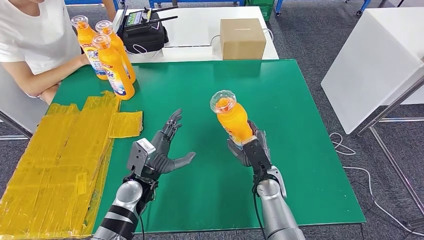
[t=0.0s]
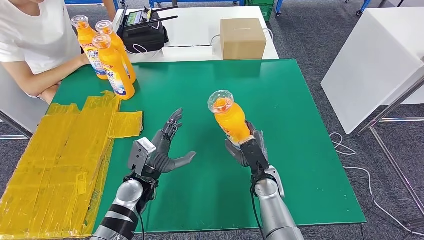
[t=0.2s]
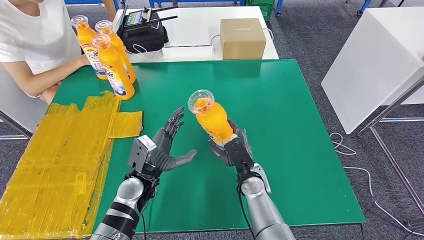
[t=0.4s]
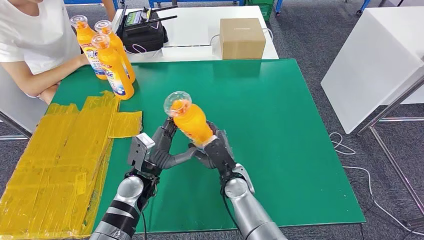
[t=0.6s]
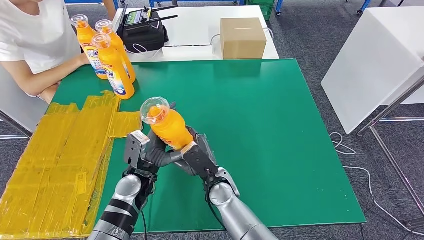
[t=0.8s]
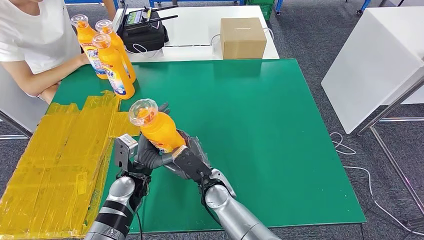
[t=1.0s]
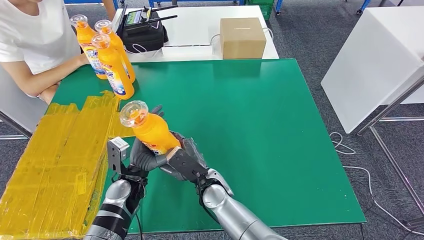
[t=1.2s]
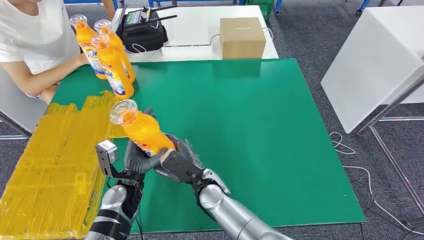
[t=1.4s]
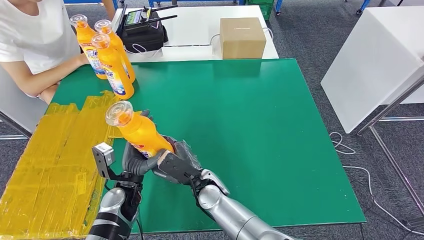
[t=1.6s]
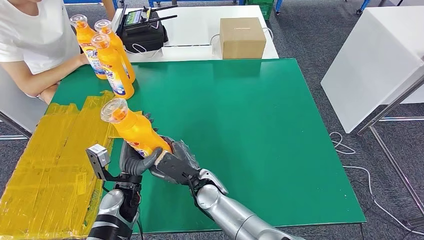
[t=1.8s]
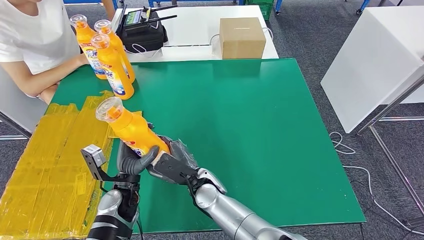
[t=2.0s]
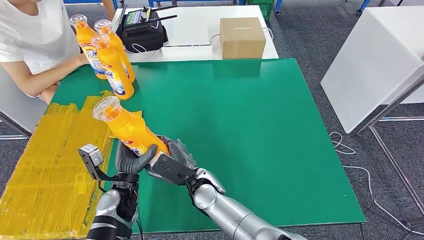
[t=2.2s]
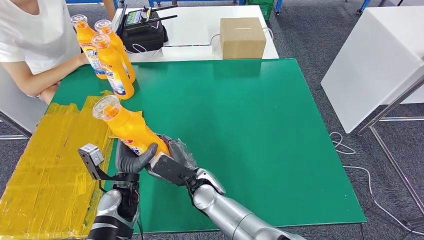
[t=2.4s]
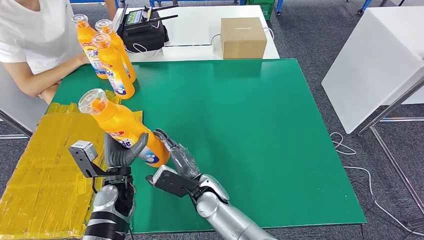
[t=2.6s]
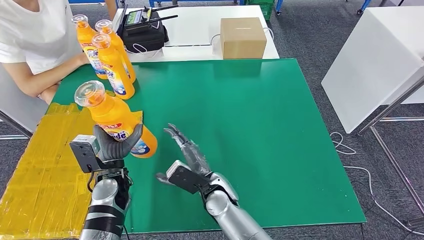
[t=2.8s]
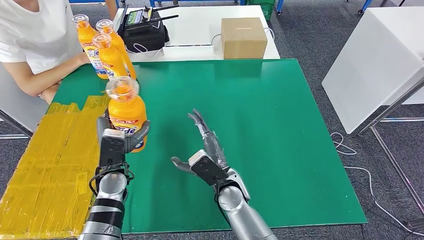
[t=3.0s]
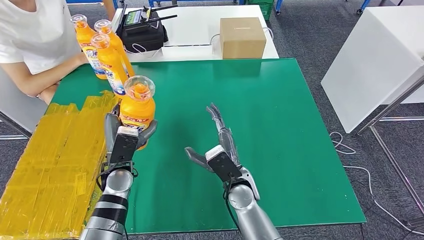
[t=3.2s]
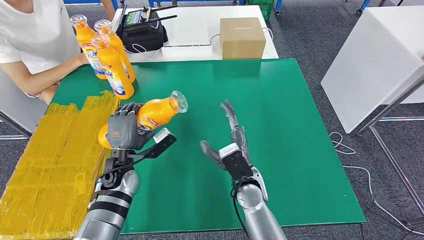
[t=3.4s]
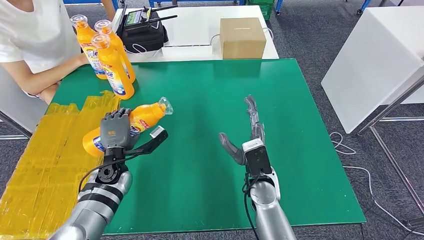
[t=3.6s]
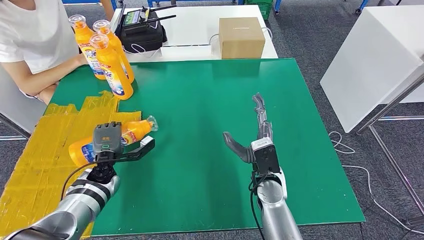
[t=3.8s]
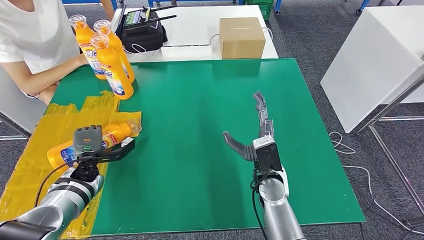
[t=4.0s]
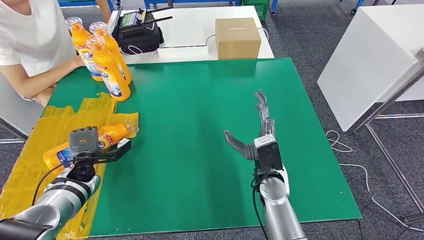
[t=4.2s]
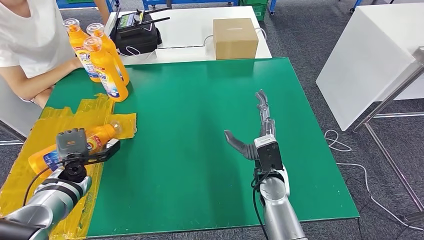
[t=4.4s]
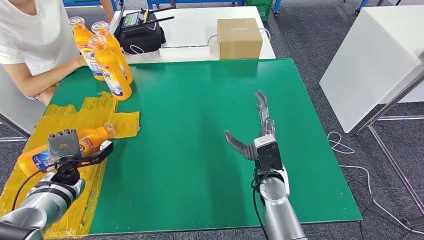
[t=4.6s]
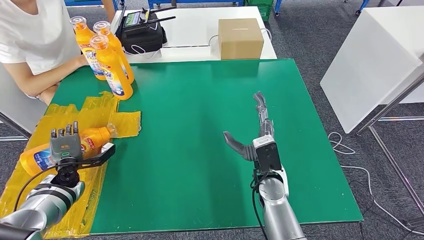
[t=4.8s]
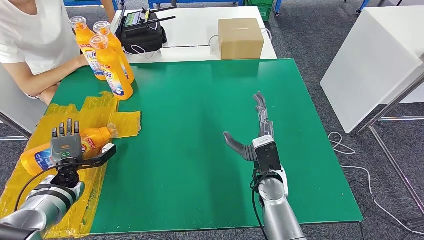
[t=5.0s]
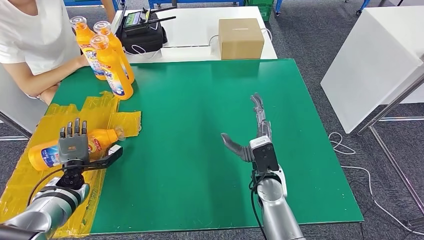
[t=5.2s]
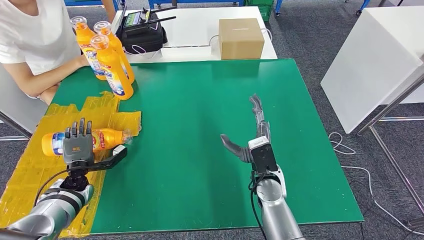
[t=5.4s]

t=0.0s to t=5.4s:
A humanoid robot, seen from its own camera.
Step, t=0.2s to t=5.4s: Flip the fast-moving consumer goods bottle to the front side.
t=0.0s to t=1.4s: The right hand goes about 15 cm to the left.
